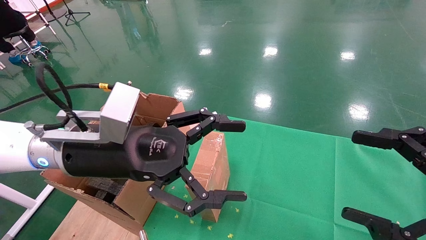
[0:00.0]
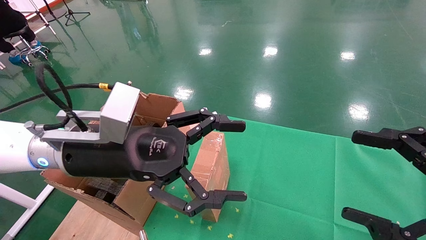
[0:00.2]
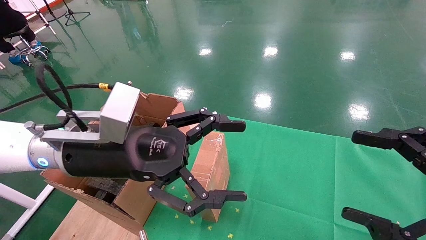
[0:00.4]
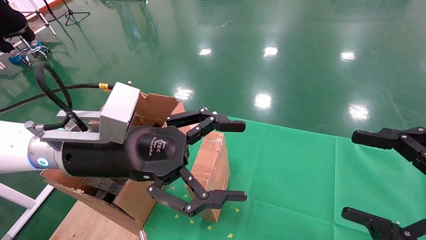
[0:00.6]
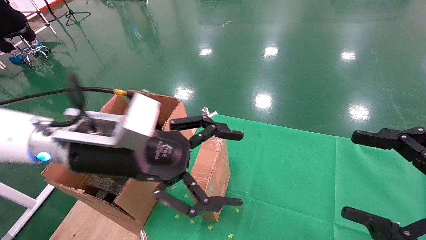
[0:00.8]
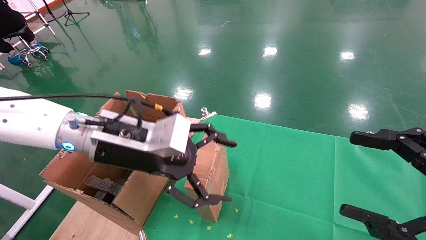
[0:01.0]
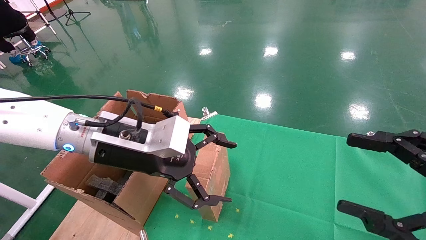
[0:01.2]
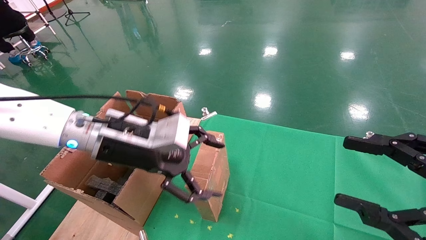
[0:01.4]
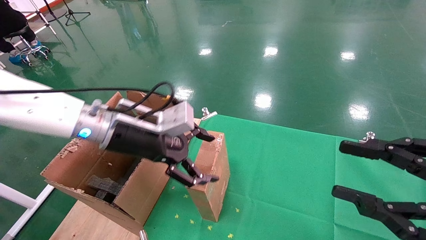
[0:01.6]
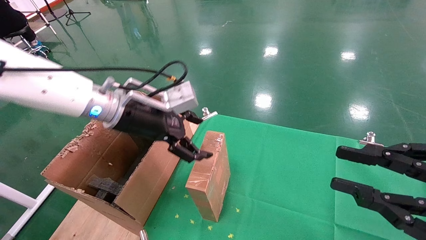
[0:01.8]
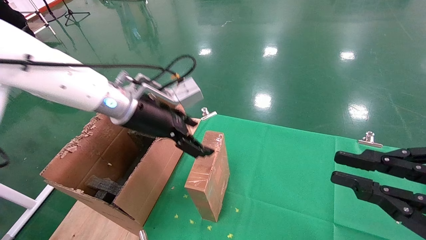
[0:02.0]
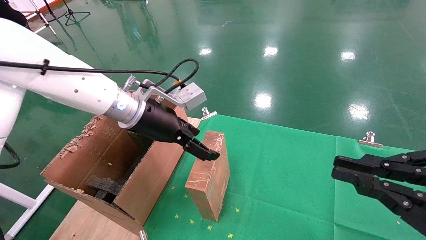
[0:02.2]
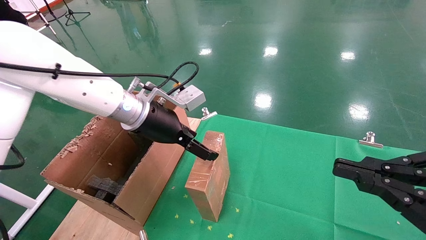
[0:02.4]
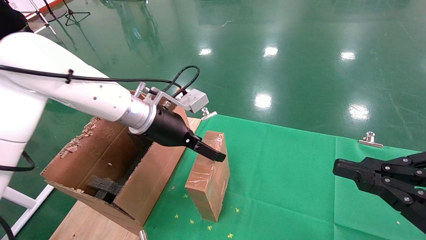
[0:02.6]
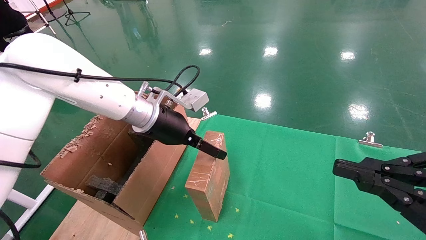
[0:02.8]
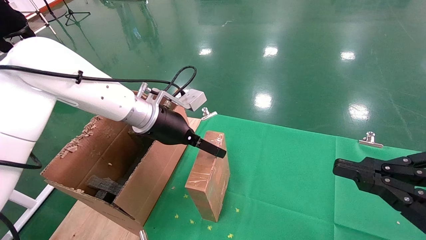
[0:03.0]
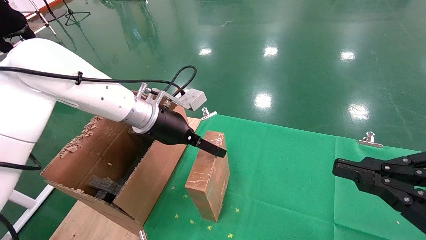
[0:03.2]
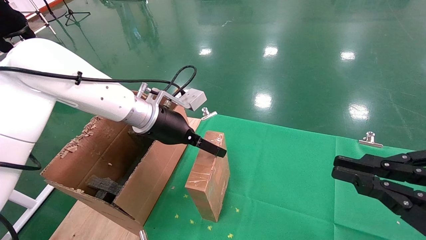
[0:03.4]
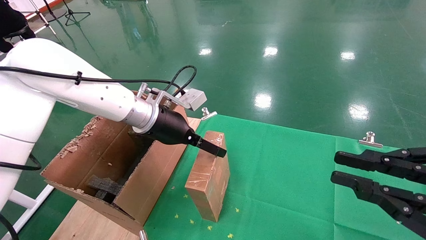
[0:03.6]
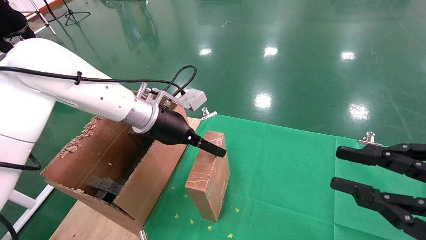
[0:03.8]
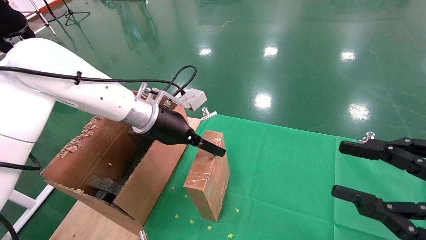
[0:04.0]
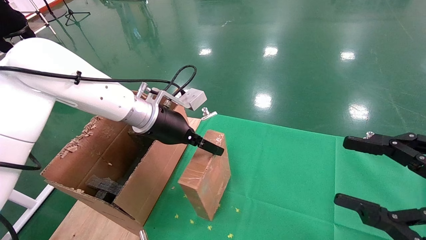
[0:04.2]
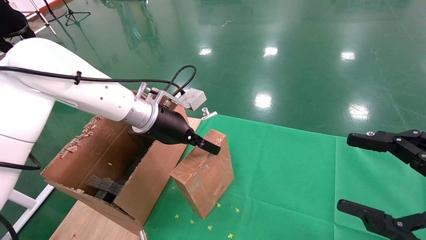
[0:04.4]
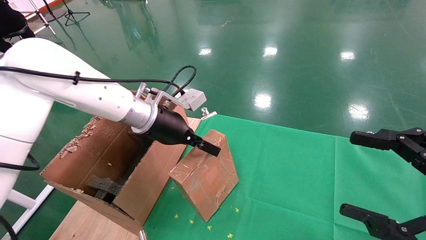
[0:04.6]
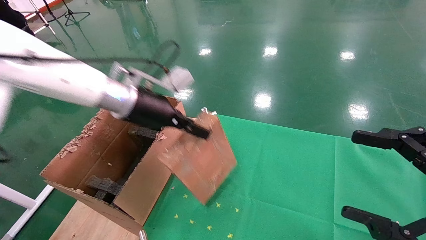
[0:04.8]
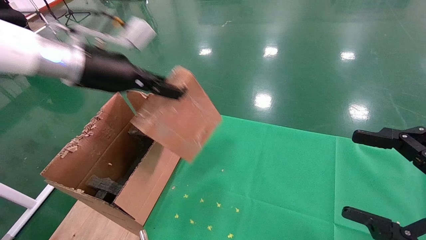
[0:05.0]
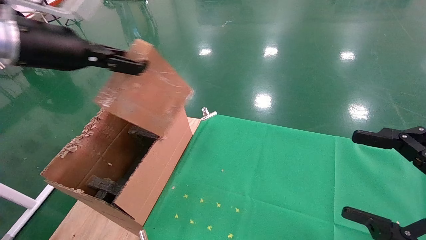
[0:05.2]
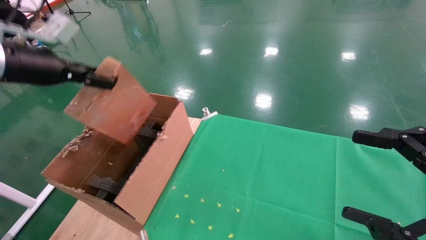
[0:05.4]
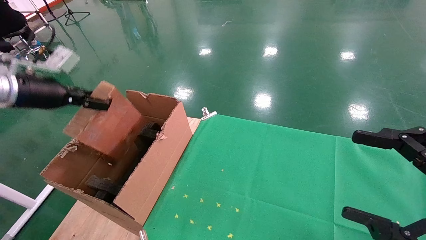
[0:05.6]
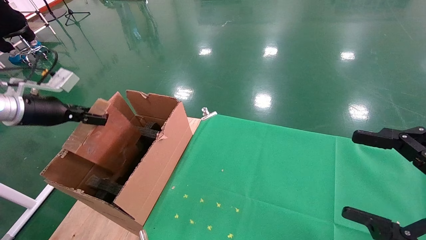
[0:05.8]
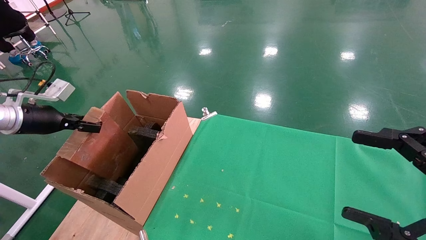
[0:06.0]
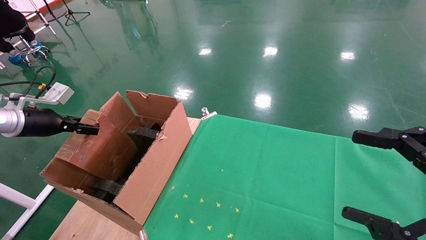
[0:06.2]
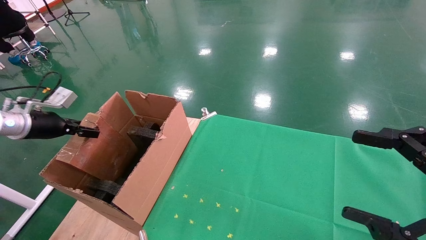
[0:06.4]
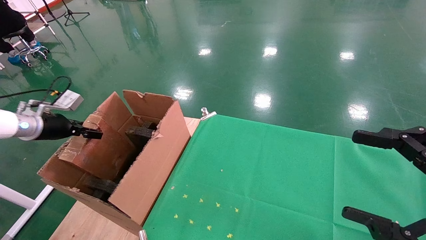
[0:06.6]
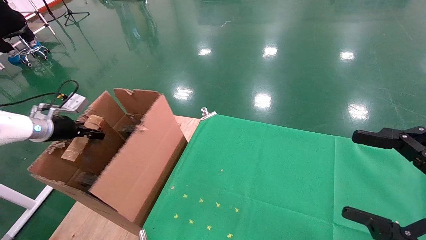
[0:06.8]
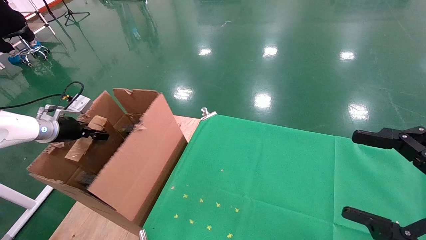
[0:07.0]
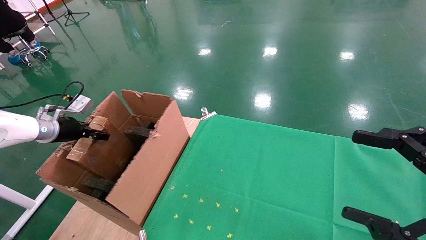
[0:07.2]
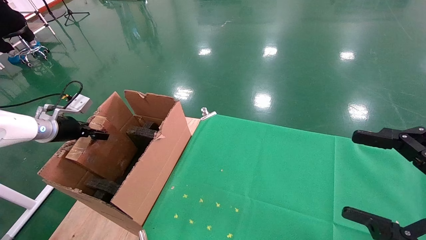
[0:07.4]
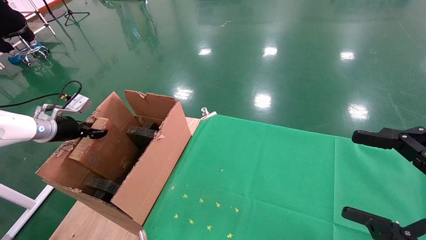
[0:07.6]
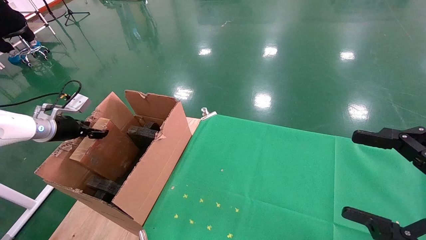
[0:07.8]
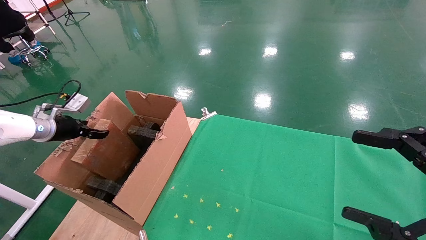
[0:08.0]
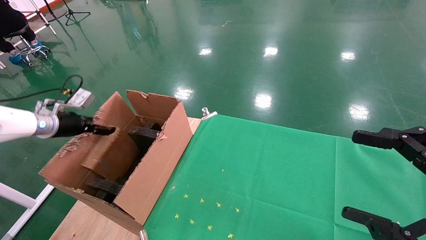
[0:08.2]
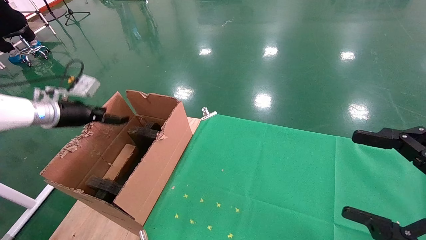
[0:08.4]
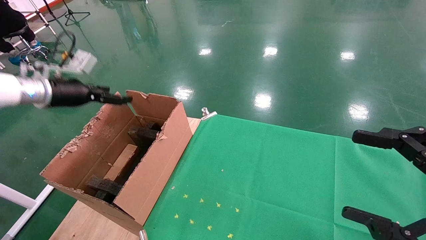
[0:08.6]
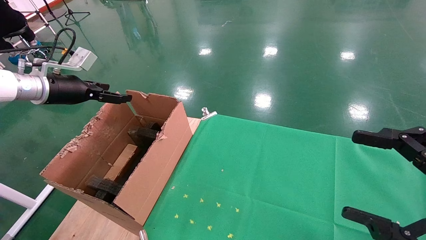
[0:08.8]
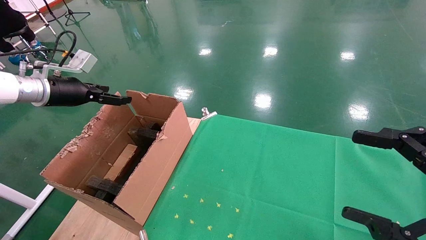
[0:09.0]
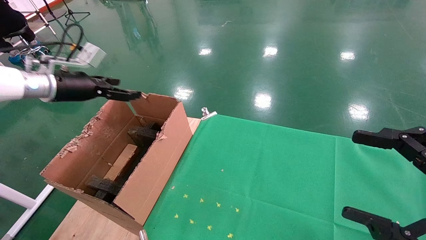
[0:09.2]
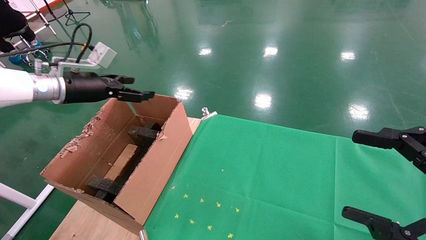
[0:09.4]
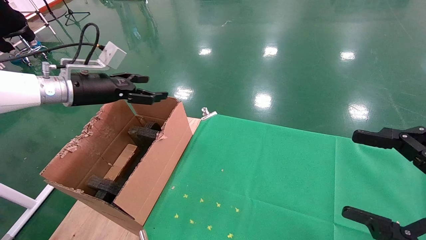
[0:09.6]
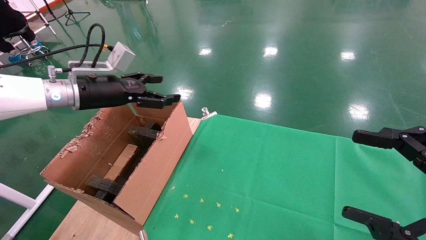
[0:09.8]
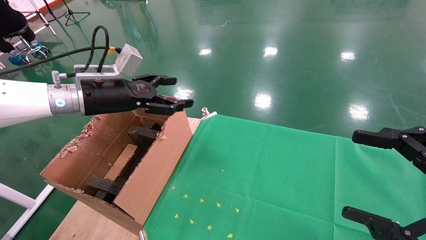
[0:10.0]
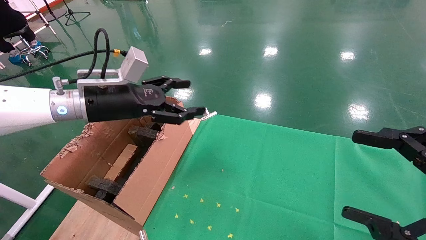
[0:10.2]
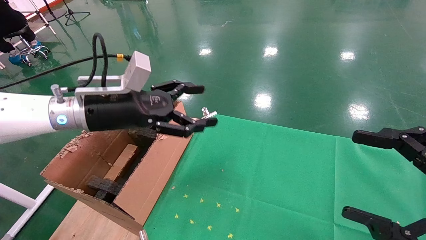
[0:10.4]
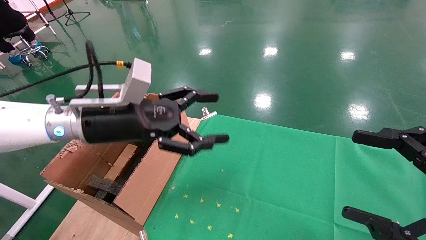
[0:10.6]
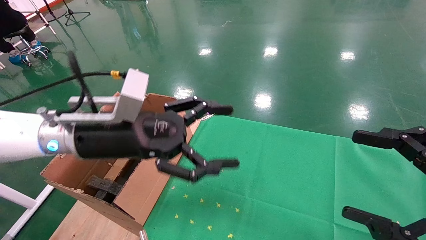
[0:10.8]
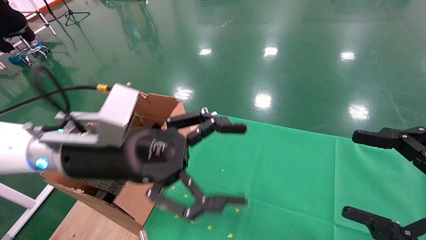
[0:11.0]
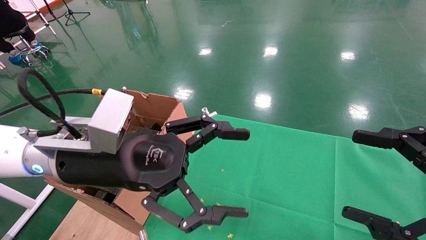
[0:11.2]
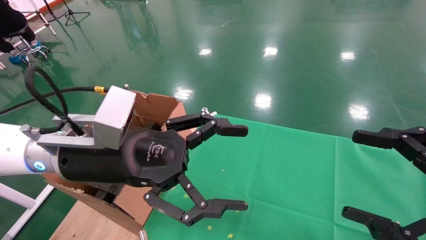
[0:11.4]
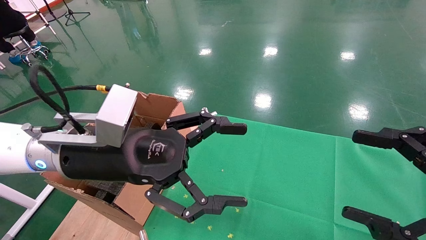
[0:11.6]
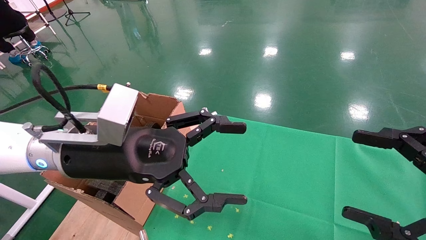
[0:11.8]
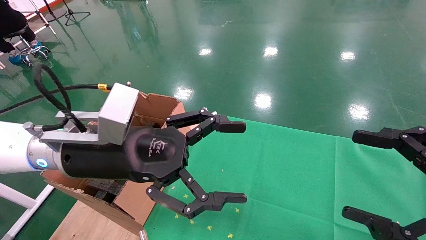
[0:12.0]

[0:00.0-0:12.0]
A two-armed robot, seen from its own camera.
Task of the whole recording: using a robotic arm to pick up a cardboard box and palace it the carton.
Step, 0:01.0 to 0:04.4: Pick up the mouse and the power cord paper box.
Step, 0:04.6 to 0:08.4: Place the mouse and the power cord paper box into the container.
0:00.0 to 0:01.6: The left gripper moves forward, some 10 cm, while the right gripper closes its fingers.
0:01.6 to 0:03.0: The right gripper closes its fingers. Meanwhile the left gripper goes roughly 5 cm forward.
0:03.0 to 0:04.4: The right gripper opens up. The left gripper closes.
0:04.4 to 0:06.0: The left gripper moves to the left, some 30 cm.
0:06.0 to 0:07.6: The left gripper moves downward and forward, about 10 cm.
0:07.6 to 0:09.0: The left gripper moves upward and to the right, about 15 cm, and opens.
0:09.0 to 0:10.4: The left gripper travels to the right by about 20 cm.
0:10.4 to 0:12.0: The left gripper goes some 10 cm backward and to the right.

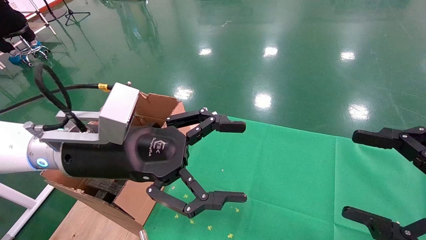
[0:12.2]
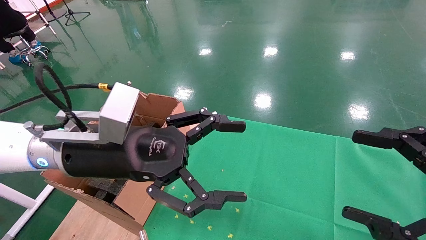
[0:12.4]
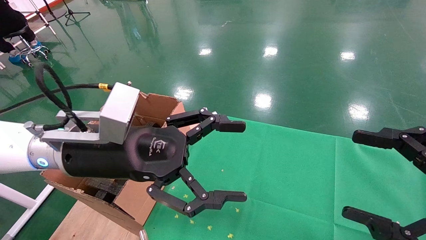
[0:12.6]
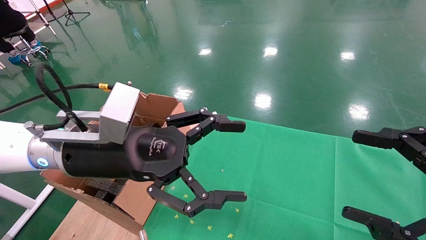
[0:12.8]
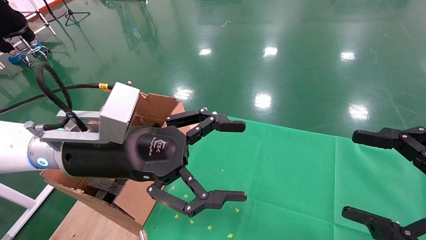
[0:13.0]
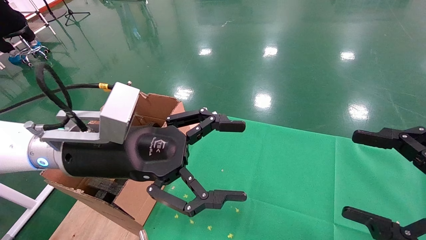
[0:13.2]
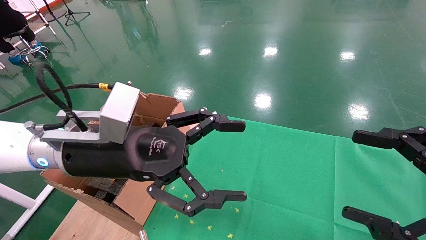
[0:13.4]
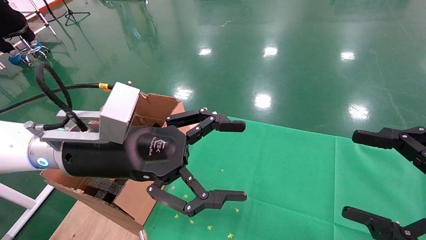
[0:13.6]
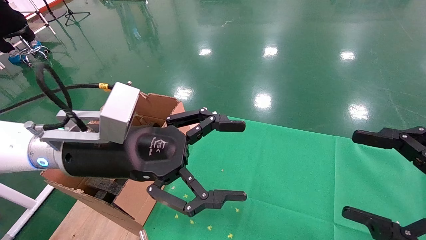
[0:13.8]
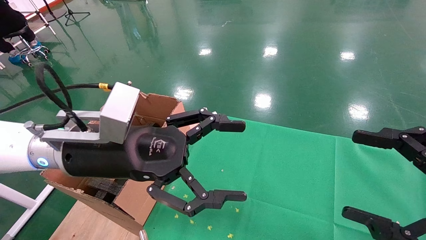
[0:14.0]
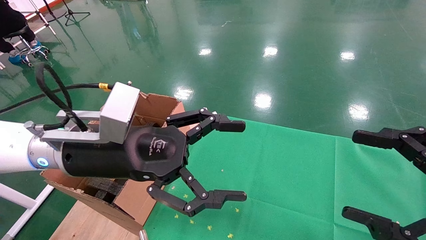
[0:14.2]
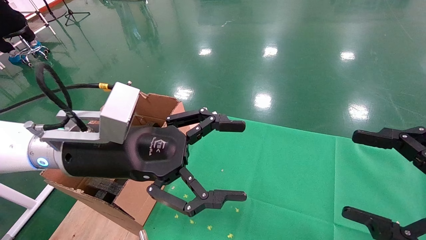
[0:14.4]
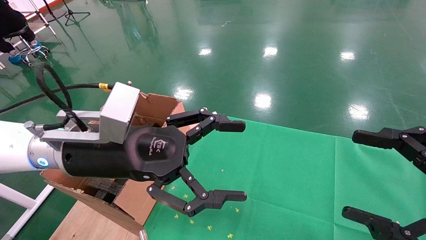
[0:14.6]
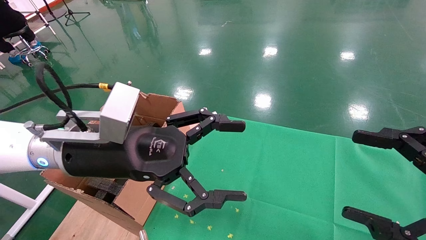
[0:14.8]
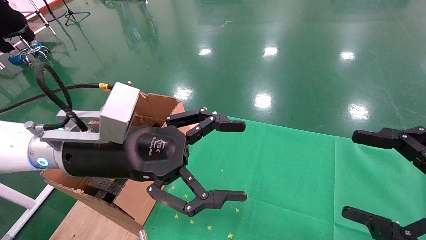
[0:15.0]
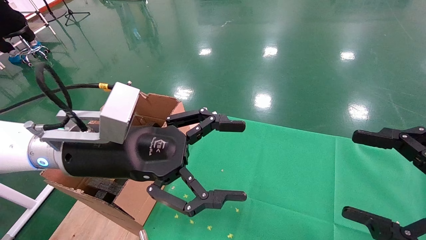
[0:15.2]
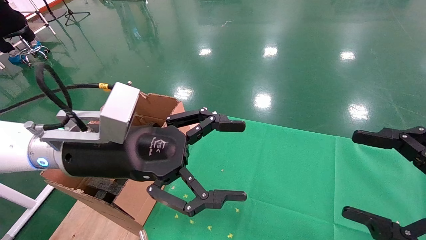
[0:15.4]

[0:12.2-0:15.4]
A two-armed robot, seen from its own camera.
Task of the whole recording: using a robotic arm to pick up a cardboard box and palace it the carton.
0:12.2 to 0:15.4: The two grippers keep their place.
